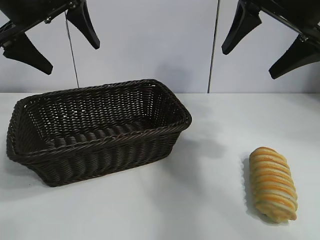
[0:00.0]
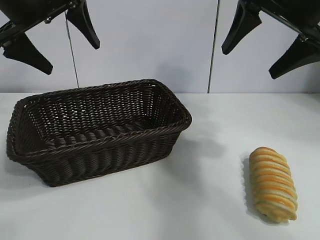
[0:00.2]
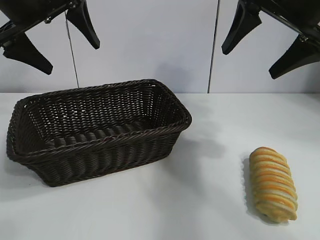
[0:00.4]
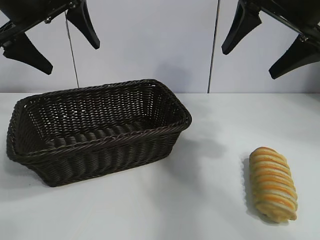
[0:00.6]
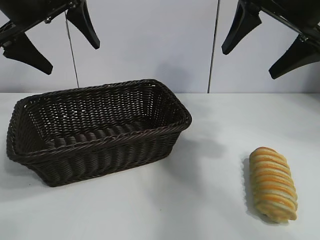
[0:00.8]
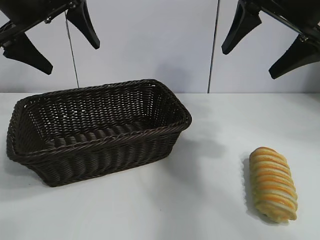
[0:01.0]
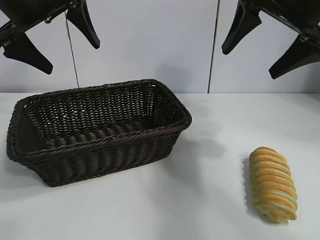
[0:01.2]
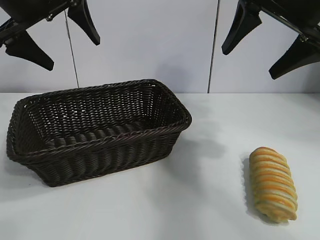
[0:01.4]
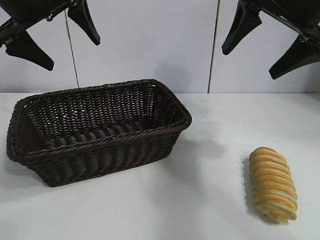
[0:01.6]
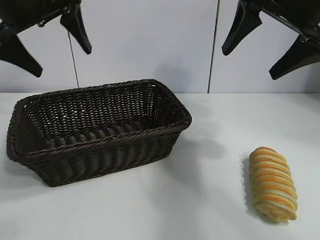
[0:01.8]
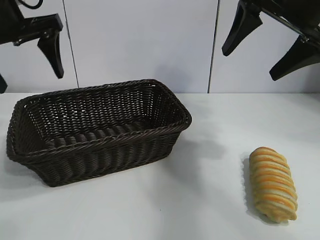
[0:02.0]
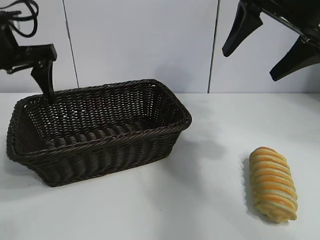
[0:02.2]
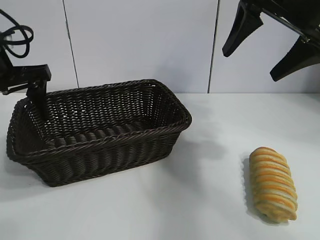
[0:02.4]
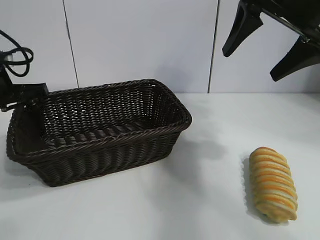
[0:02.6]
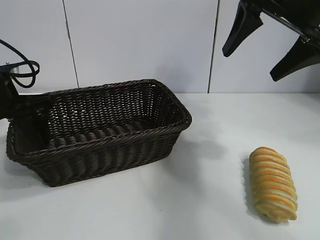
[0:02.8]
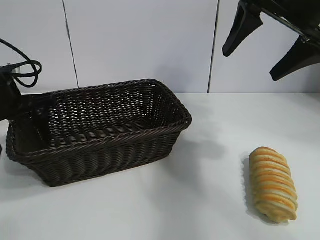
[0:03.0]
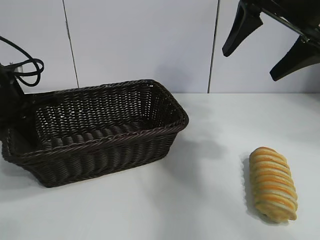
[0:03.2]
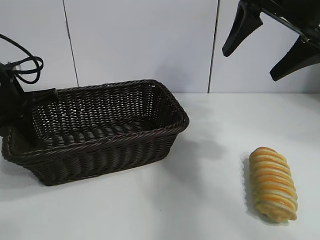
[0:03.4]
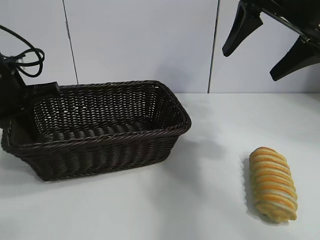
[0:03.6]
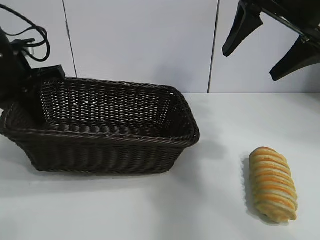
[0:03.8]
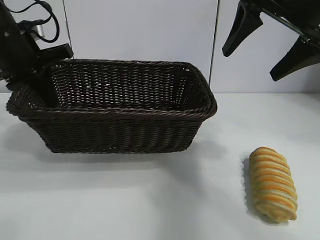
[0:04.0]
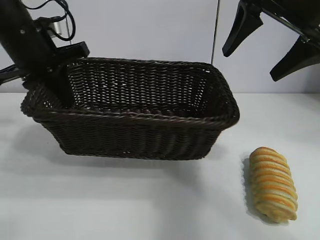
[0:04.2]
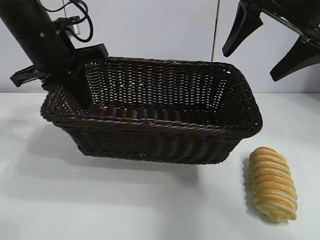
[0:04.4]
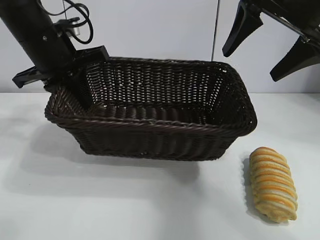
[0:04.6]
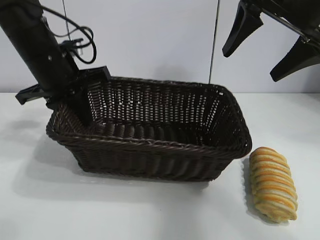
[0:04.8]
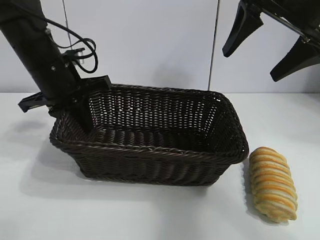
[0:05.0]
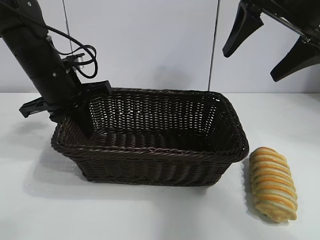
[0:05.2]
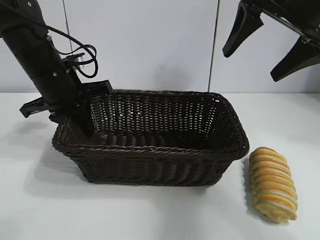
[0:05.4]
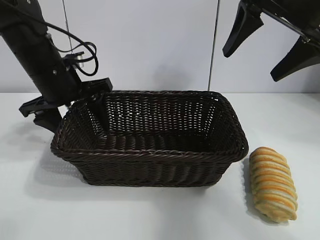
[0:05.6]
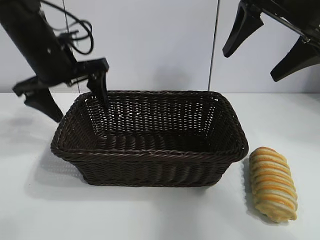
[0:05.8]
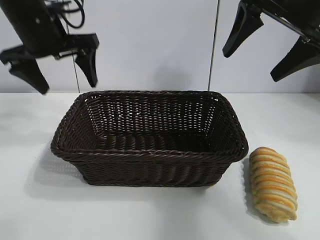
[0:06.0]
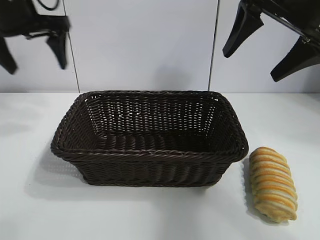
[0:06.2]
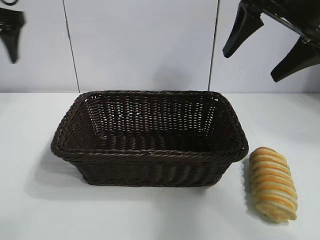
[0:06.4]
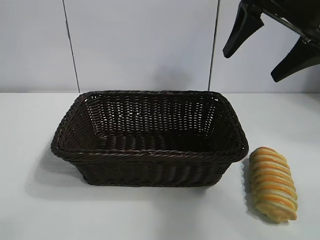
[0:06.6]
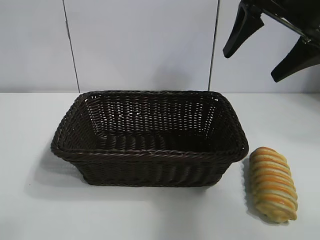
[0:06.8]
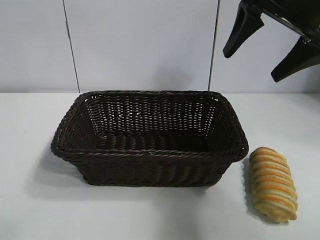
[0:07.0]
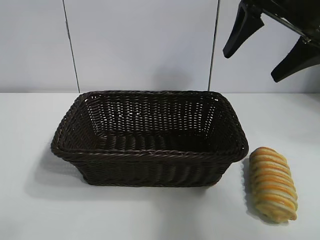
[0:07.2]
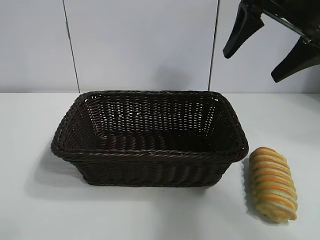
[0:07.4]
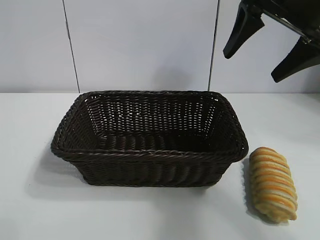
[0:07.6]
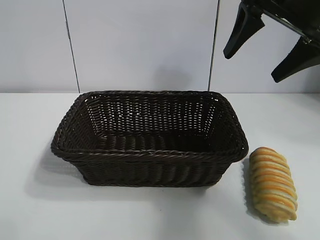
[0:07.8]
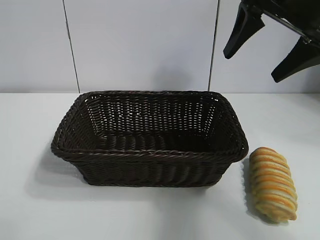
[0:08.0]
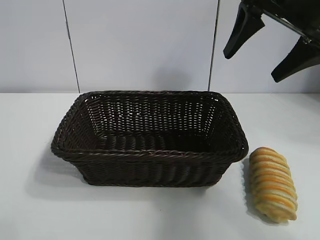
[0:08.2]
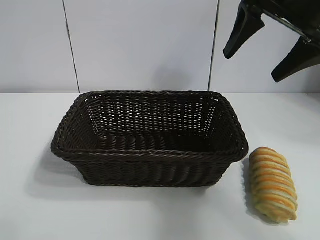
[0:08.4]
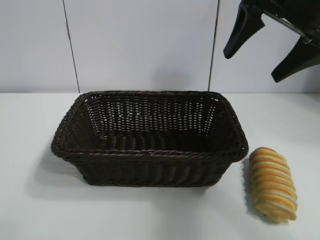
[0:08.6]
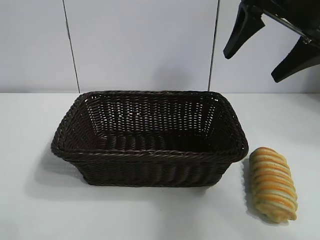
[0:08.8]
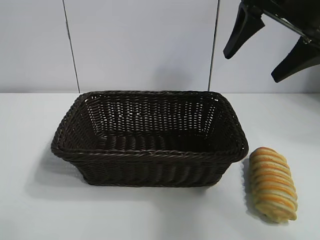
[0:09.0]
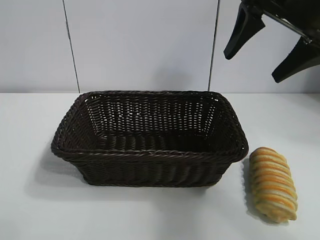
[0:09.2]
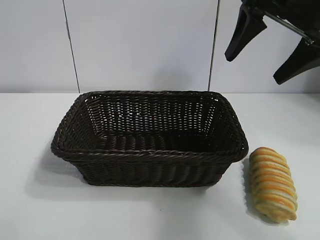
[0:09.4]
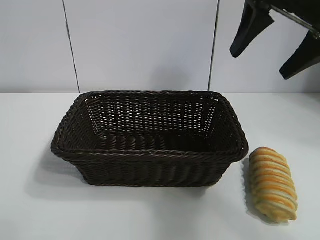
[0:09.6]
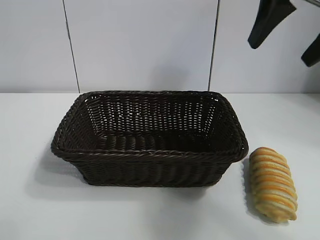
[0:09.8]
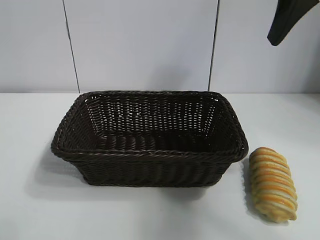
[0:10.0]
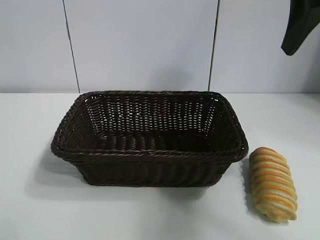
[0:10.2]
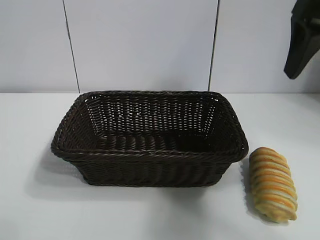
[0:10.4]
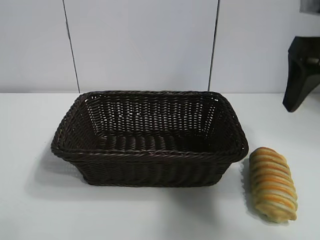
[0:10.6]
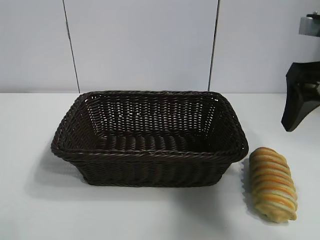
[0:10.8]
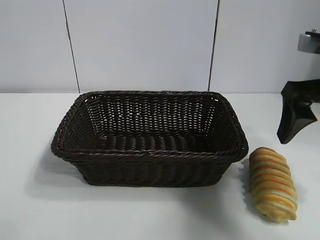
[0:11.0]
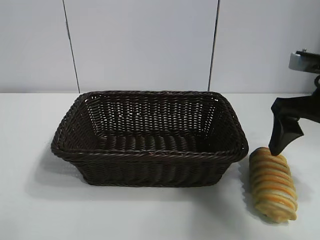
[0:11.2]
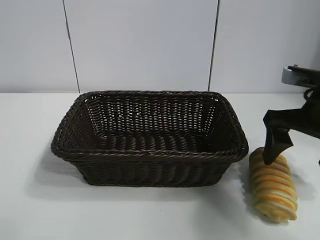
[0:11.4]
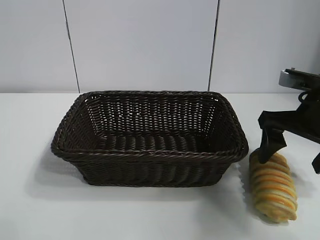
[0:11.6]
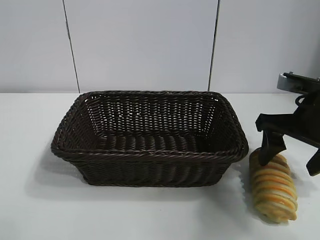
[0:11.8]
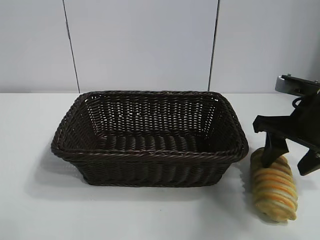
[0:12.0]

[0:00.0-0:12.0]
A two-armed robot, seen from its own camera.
Task of the whole recording: pick up the long bread and put it into the basket.
Step, 0:01.8 to 0:03.0: Grasp the basket with the left gripper.
Step, 0:03.4 to 0:05.6: Place the basket in the center of the table with the left gripper.

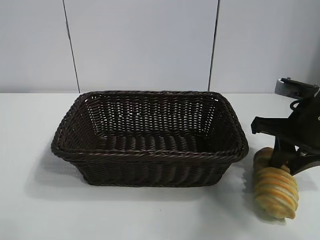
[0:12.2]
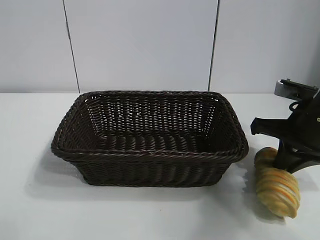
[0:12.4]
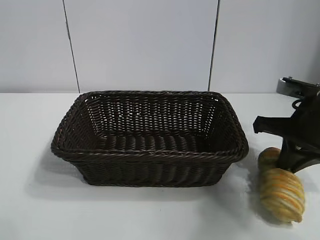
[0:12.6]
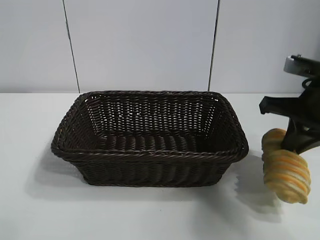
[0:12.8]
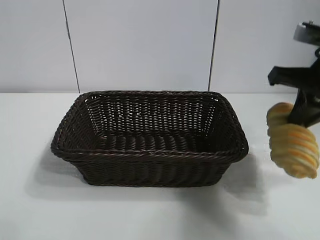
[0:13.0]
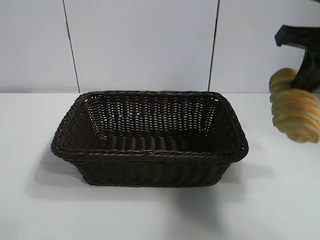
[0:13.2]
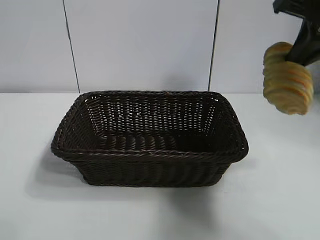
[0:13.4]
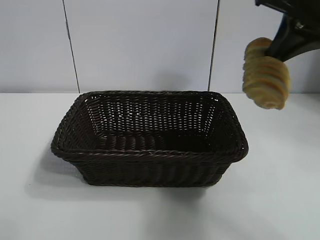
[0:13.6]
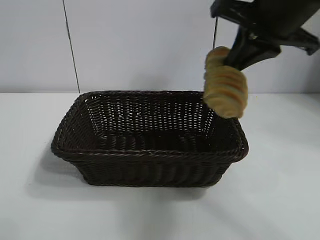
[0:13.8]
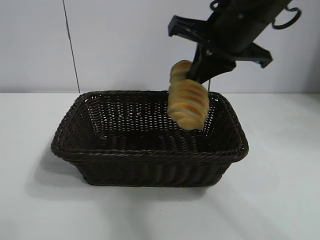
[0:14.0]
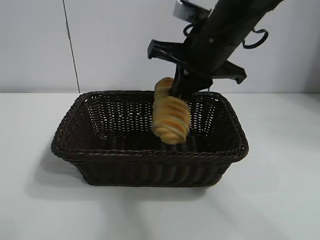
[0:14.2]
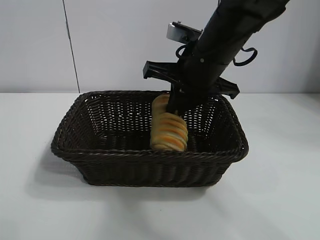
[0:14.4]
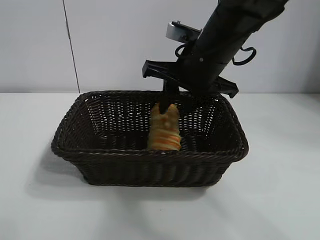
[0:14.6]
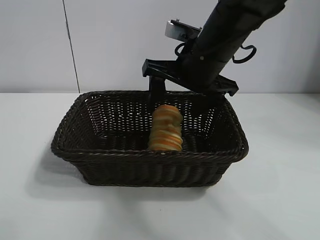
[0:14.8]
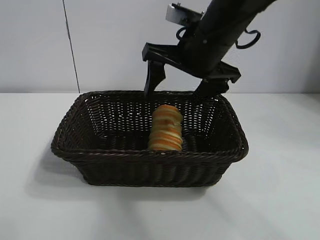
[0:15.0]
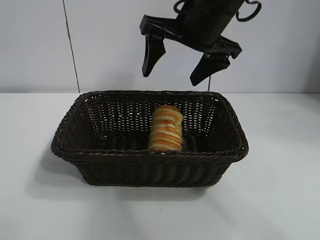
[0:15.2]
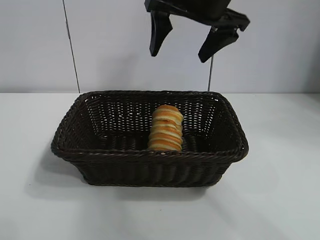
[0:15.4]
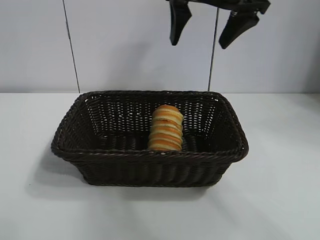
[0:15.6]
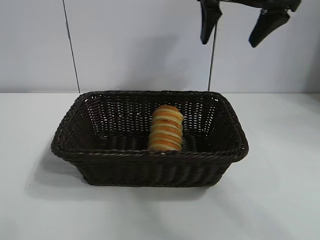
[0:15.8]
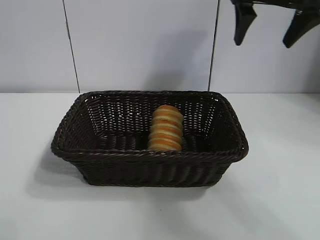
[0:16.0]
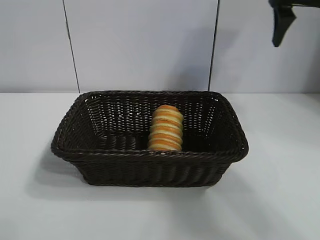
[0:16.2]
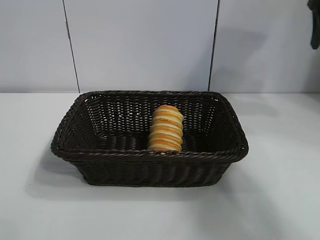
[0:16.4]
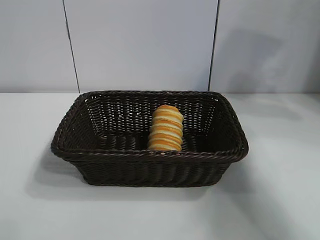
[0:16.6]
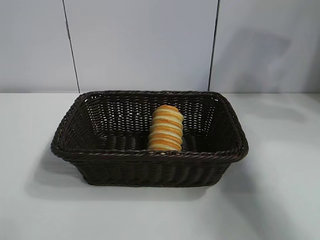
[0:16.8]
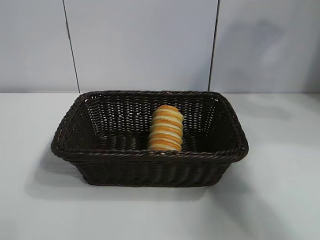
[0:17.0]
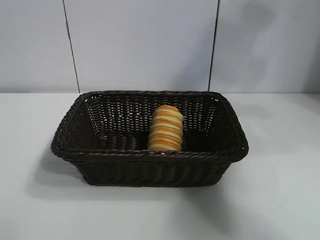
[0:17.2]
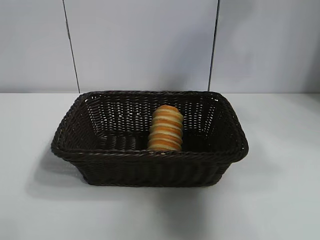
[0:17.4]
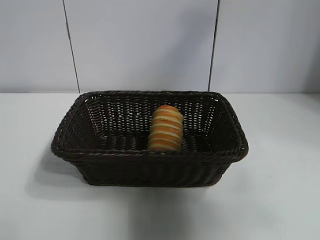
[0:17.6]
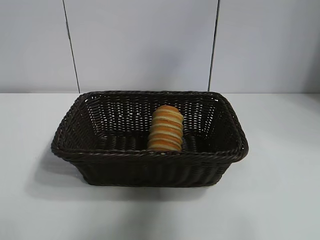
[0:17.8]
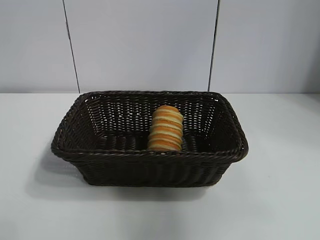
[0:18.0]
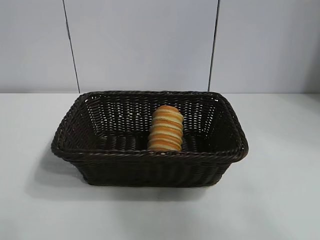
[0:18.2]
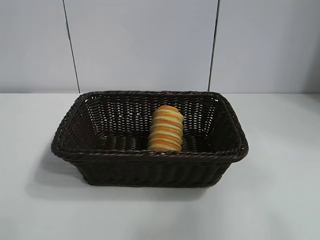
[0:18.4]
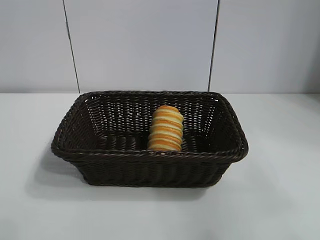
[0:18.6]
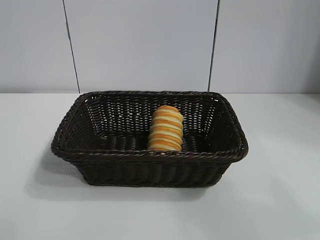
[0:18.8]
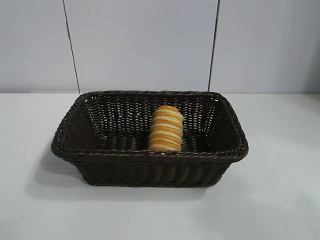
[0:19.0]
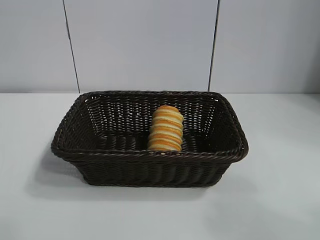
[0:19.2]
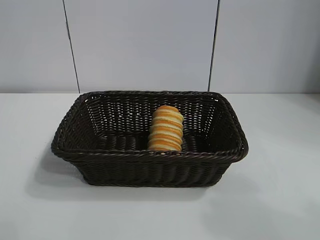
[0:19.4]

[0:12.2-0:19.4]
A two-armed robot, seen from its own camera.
Task of the whole recording: pick up the long bread and put it into the basket.
Step, 0:12.4 to 0:14.6: Place the long bread in the basket with right gripper.
